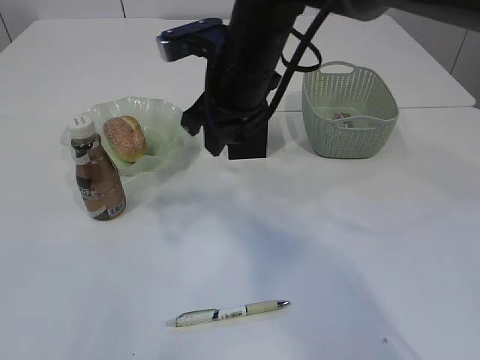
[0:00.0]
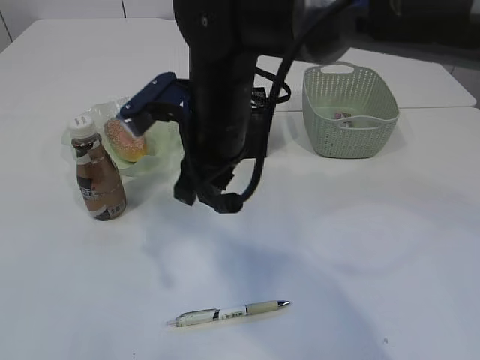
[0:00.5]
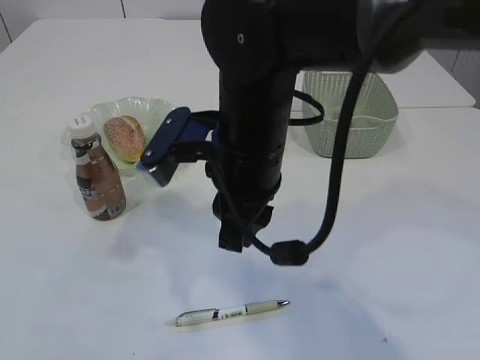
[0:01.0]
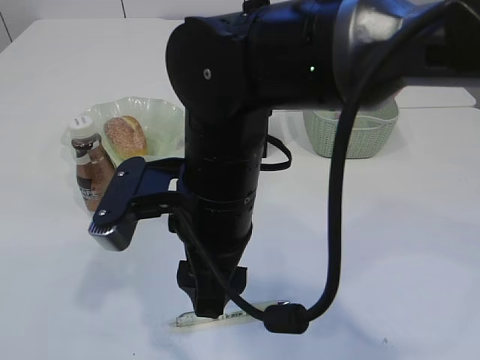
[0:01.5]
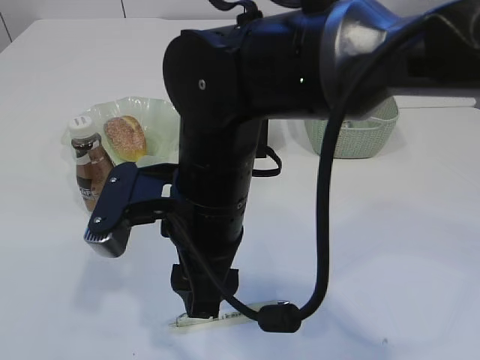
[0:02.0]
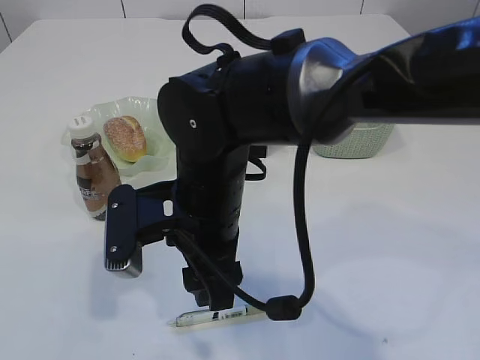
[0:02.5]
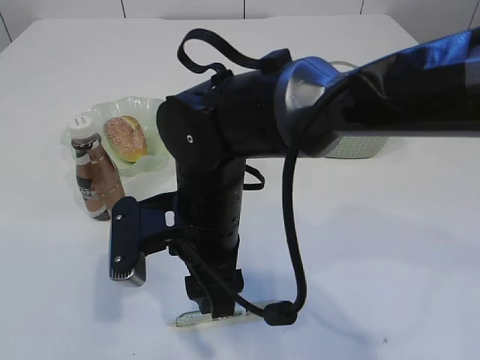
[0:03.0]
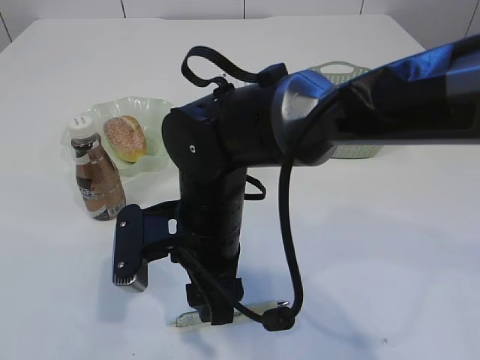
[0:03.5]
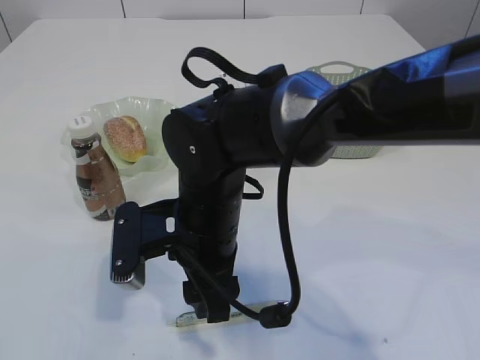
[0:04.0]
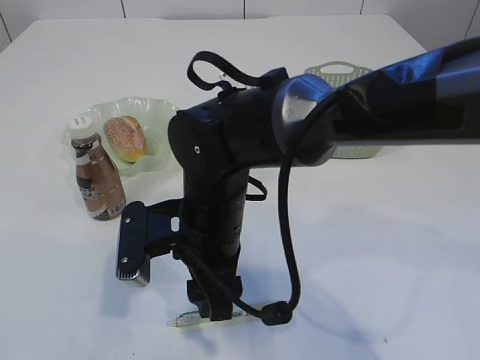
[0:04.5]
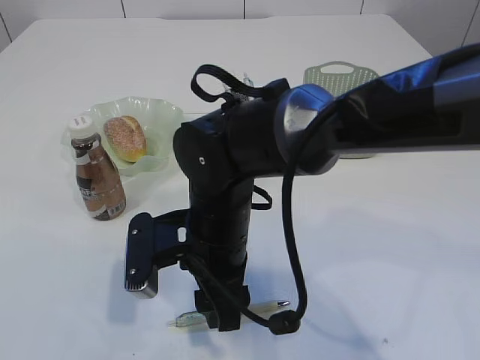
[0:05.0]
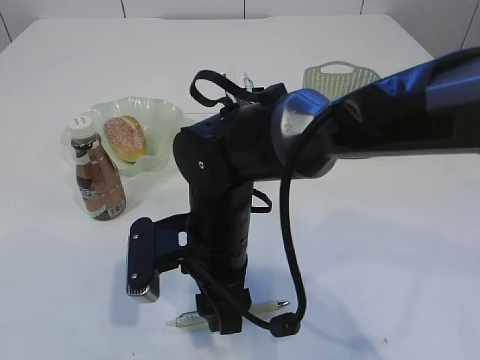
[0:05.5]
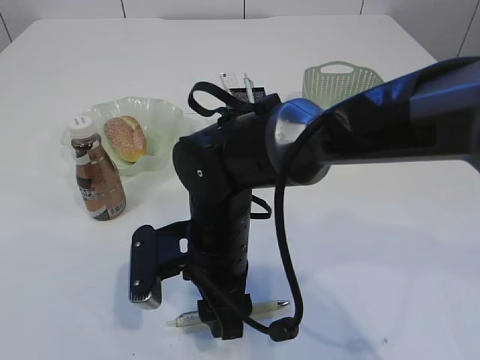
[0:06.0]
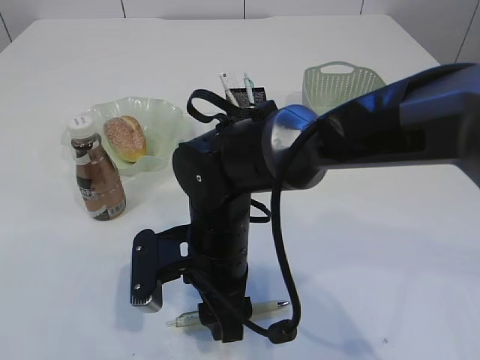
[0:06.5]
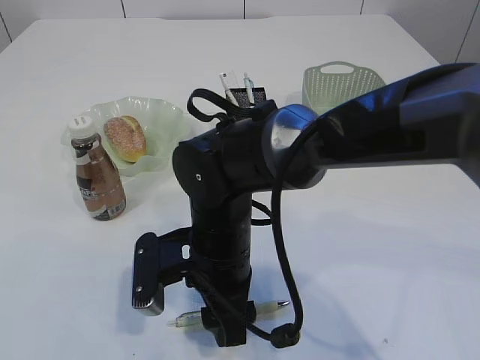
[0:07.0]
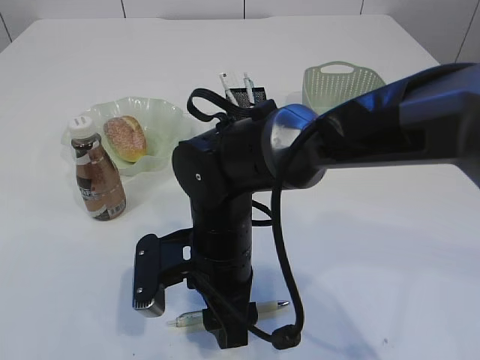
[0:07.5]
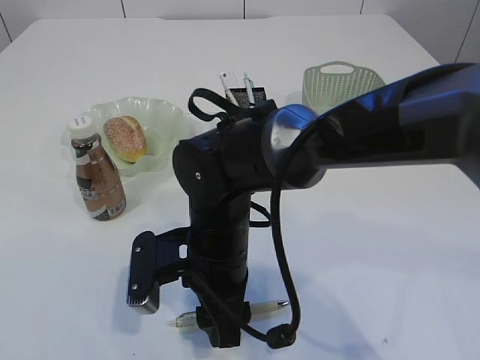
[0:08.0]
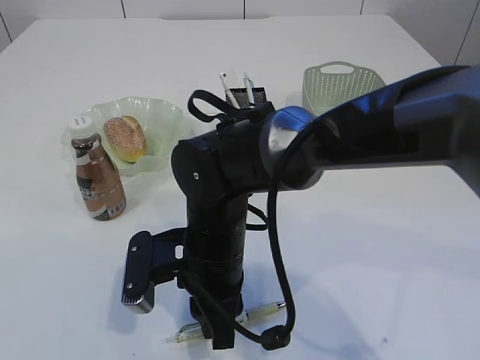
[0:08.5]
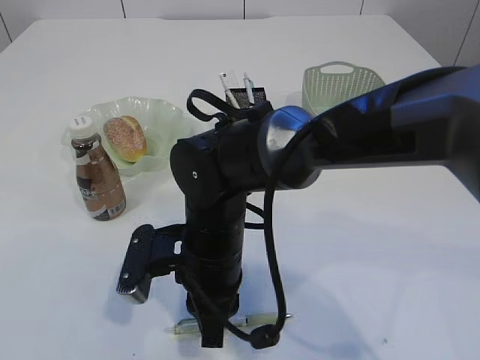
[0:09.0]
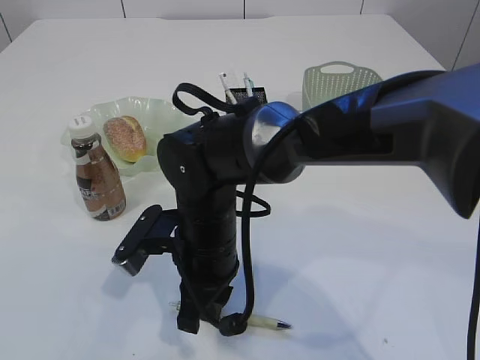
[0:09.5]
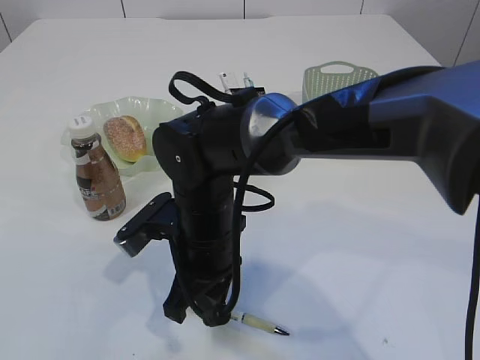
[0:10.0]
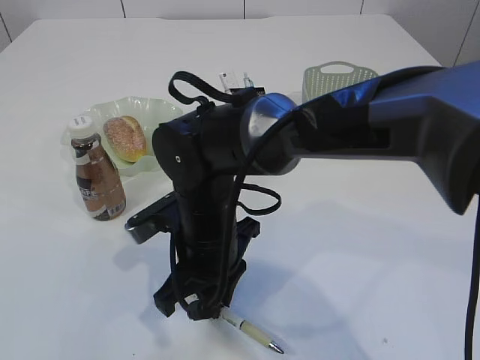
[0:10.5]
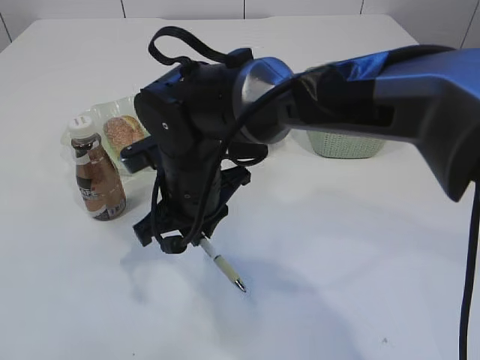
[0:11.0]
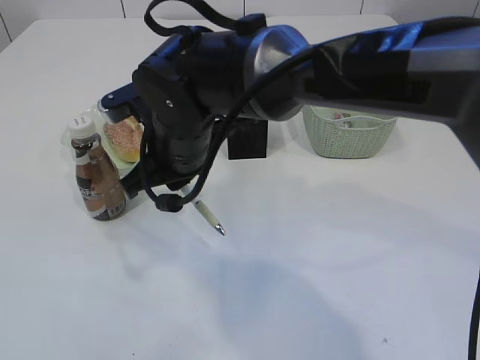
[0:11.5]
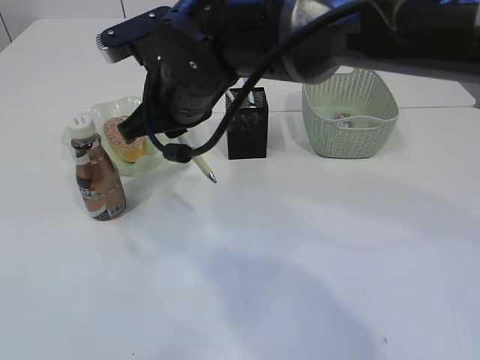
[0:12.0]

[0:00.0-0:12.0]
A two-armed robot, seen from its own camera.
Step, 0:00.0 to 0:11.5: Pick up the pen with right arm.
0:00.0 to 0:02.0: The right gripper shifts some 15 cm backward, and opens its fingers.
0:02.0 to 0:04.0: The right gripper is displaced downward by roughly 5 cm.
0:04.0 to 0:08.0: The grippers make only small movements.
0:08.0 to 0:10.0: The right gripper closes its fingers.
0:10.0 to 0:12.0: The right gripper moves upward and forward, some 15 cm.

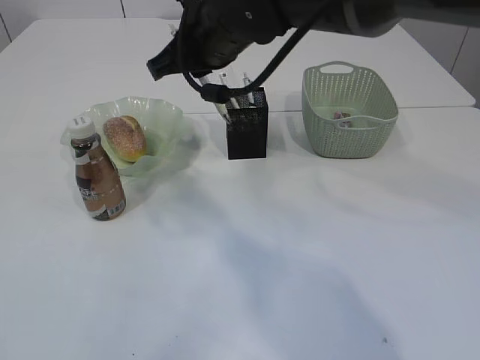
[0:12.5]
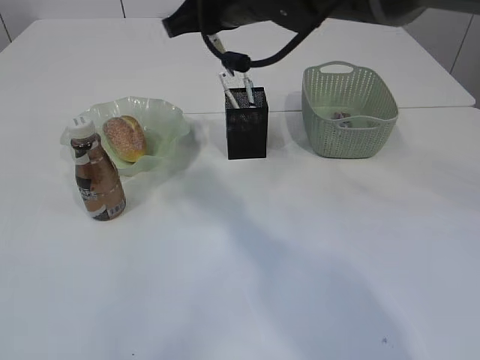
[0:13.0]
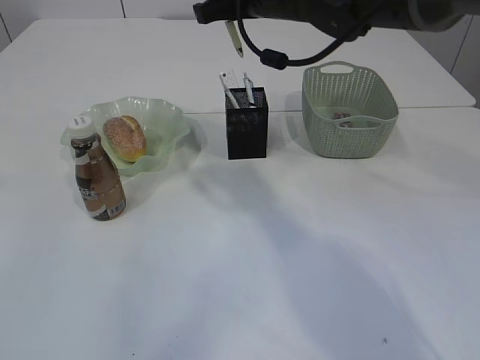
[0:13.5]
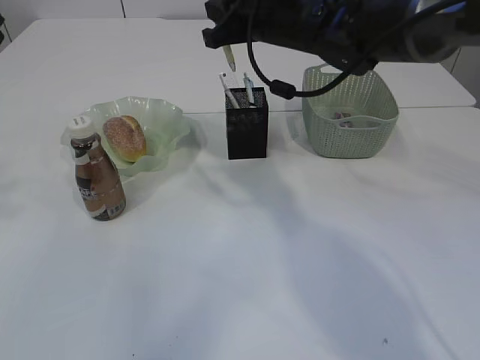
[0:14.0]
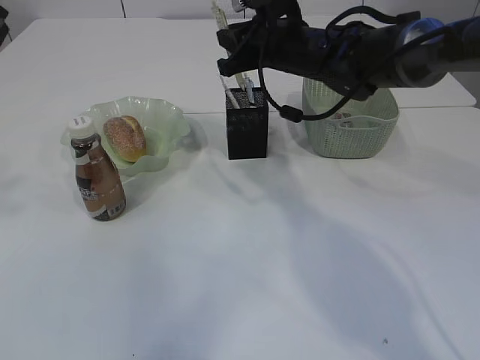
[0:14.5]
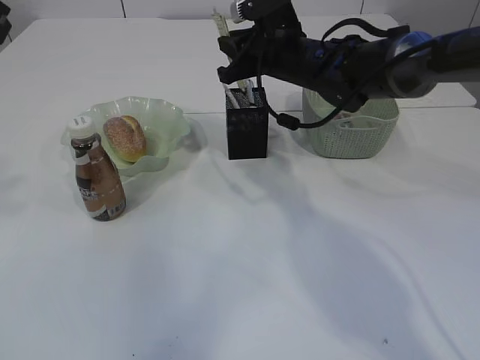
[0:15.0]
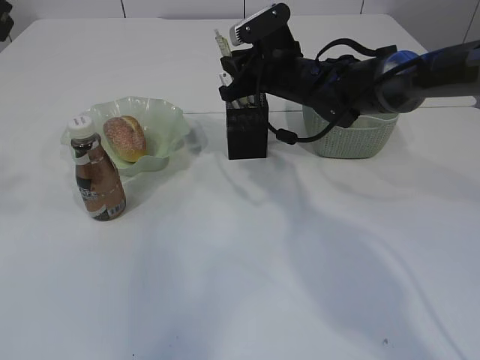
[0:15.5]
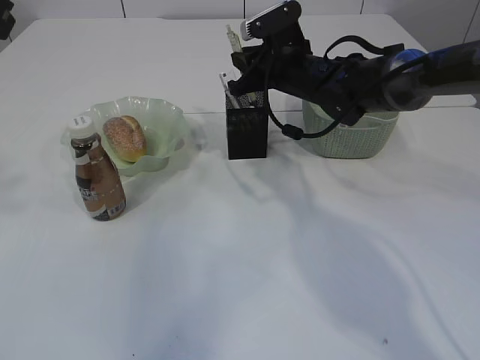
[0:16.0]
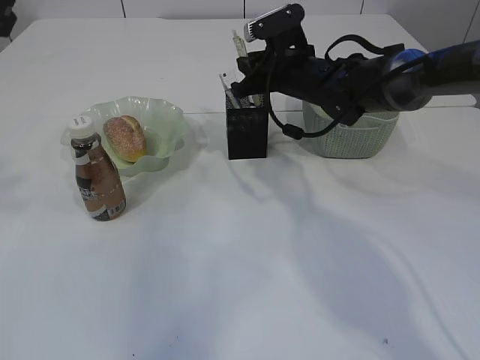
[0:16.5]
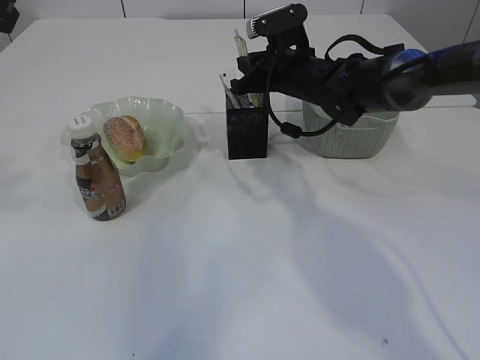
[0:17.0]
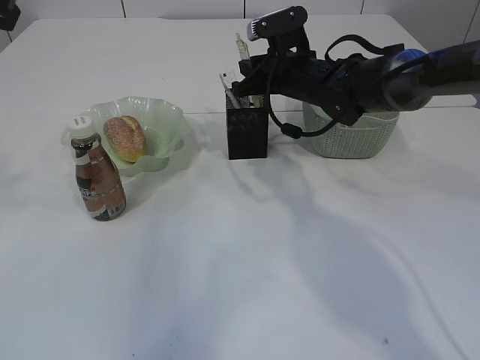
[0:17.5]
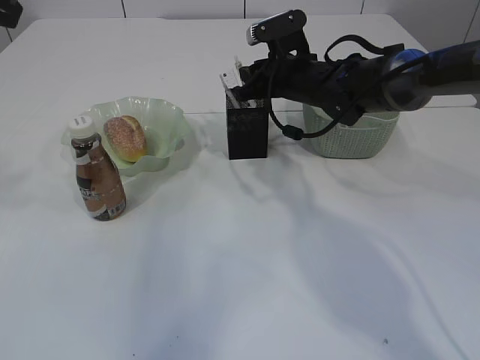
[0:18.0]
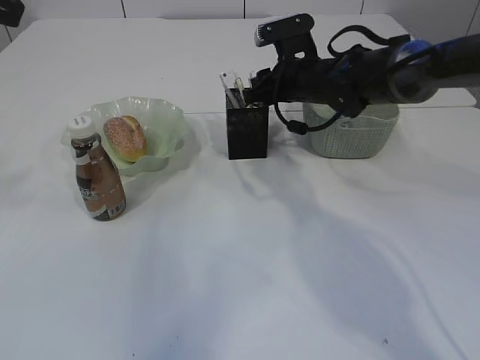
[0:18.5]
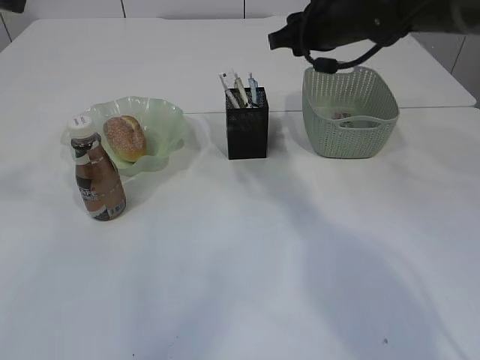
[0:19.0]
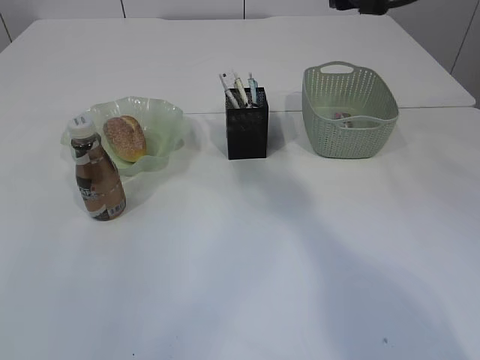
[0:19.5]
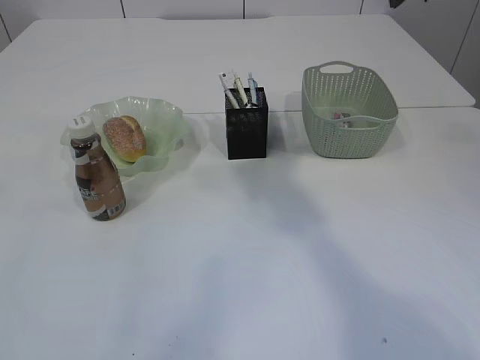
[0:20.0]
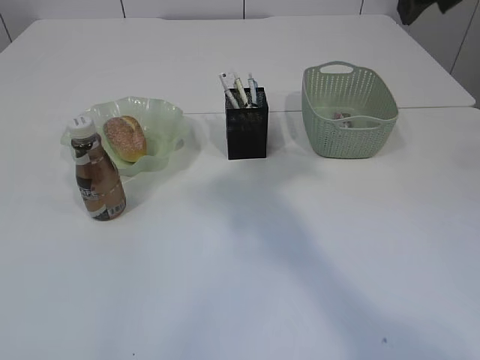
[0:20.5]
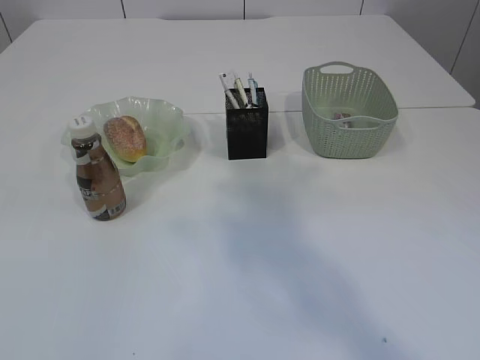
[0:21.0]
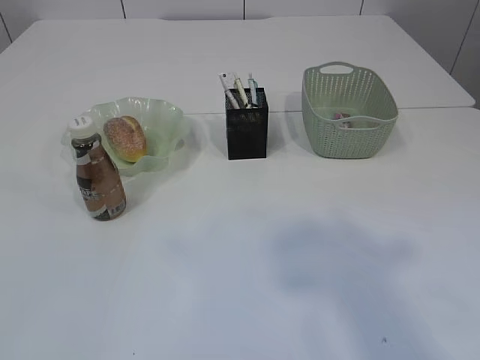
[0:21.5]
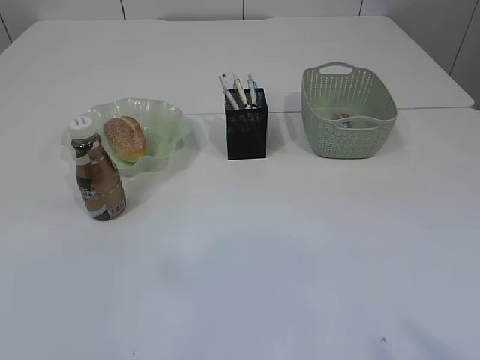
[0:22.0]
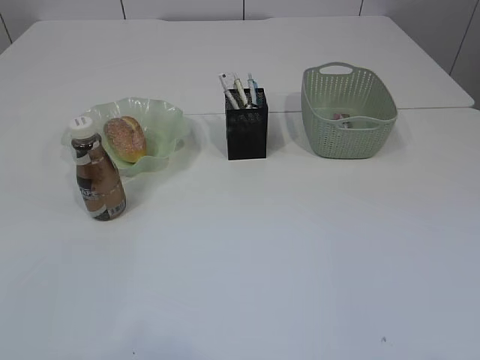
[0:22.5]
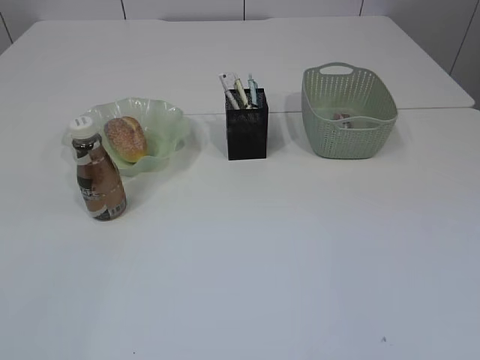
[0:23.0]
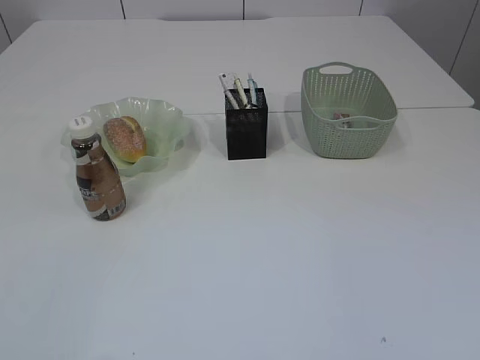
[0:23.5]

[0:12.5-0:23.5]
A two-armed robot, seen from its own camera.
Step, 0:12.5 to 0:18.5: Place the pen into the pen holder.
0:12.5 to 0:14.5: The right gripper travels forward, to the right and downward by some 15 cm.
0:14.5 to 0:18.0: The grippers stay close to where they were, moving slightly.
0:18.0 to 0:20.0: The right gripper travels upward, backward and to the right by approximately 25 cm. The left gripper changes place by about 5 cm, and opens up.
0:20.0 to 0:21.5: The right gripper travels backward and upward by approximately 30 cm; the left gripper shifts roughly 15 cm backward.

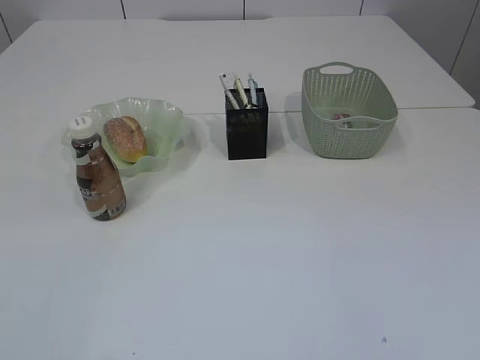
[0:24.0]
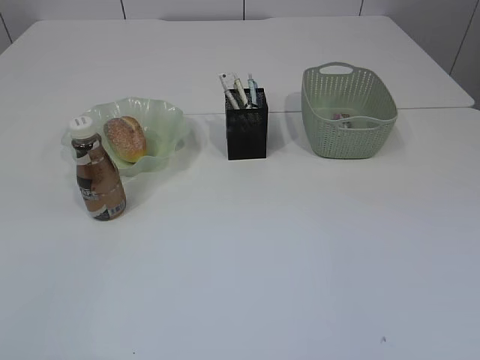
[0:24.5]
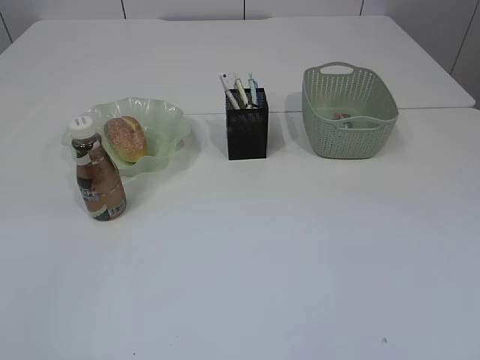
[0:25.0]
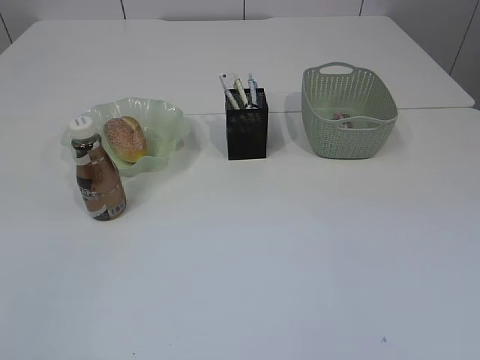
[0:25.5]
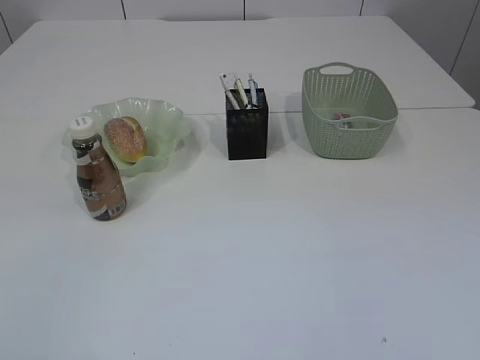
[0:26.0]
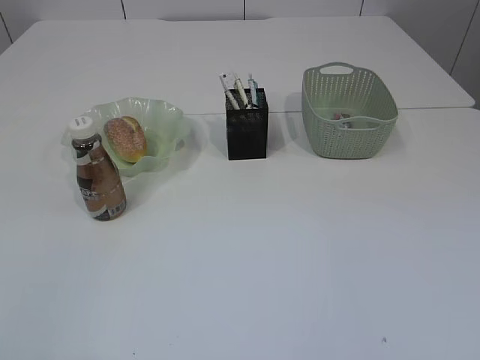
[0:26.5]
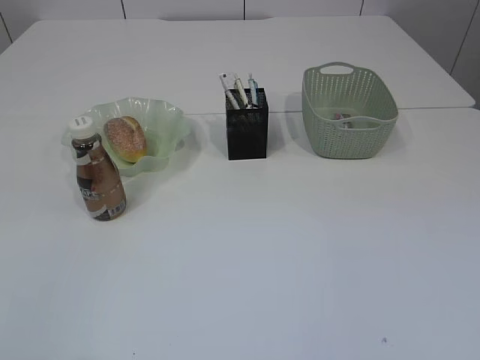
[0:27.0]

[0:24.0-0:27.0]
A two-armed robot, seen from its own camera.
0:25.5 to 0:27.0: Both grippers stay about where they are.
